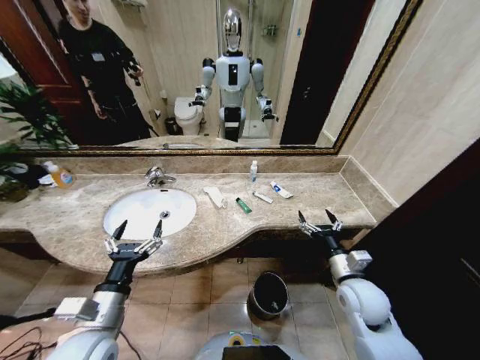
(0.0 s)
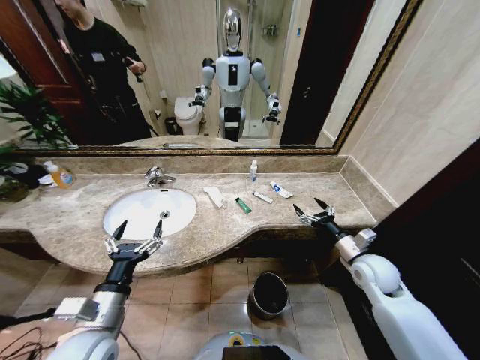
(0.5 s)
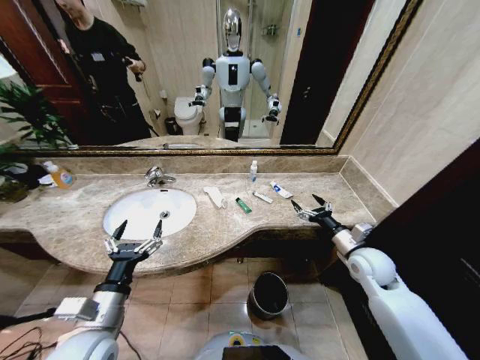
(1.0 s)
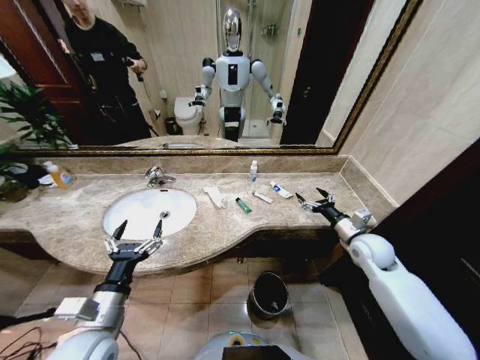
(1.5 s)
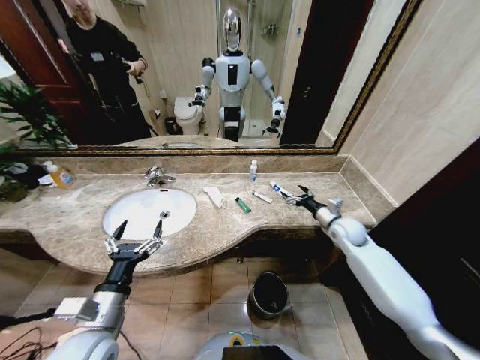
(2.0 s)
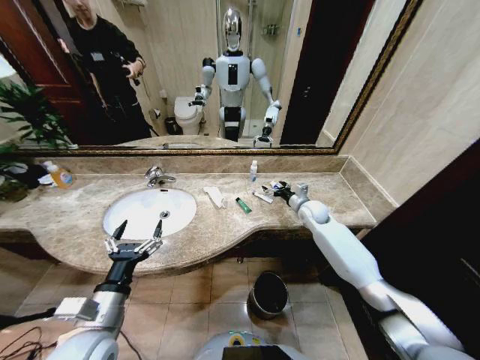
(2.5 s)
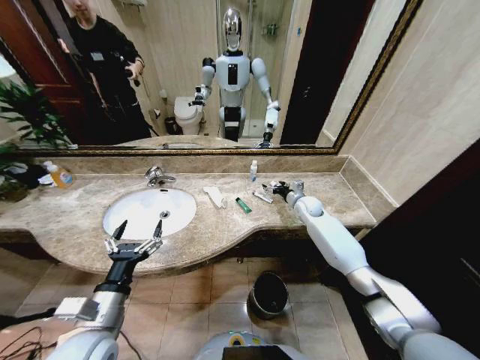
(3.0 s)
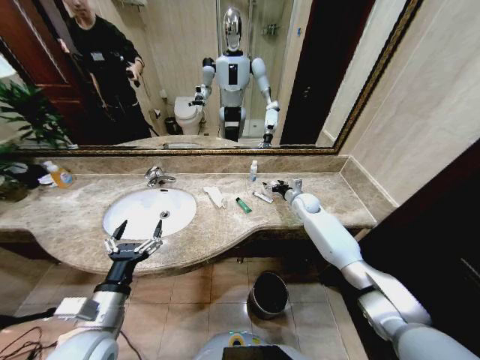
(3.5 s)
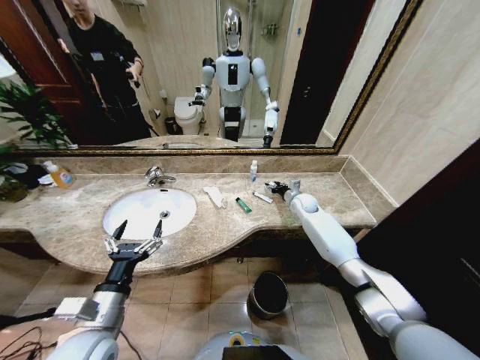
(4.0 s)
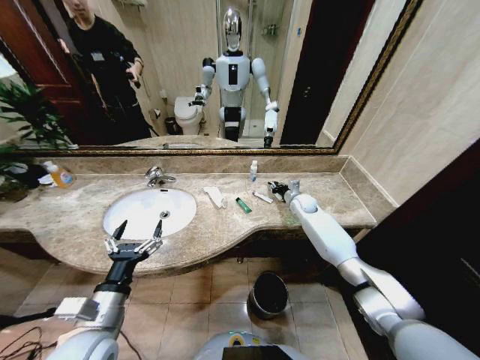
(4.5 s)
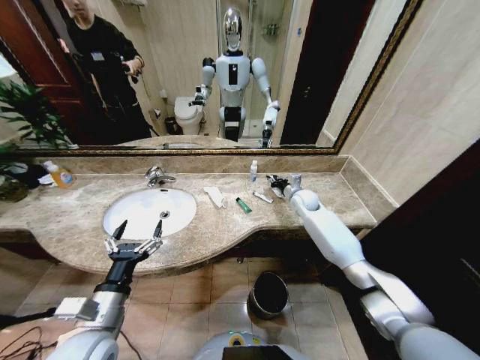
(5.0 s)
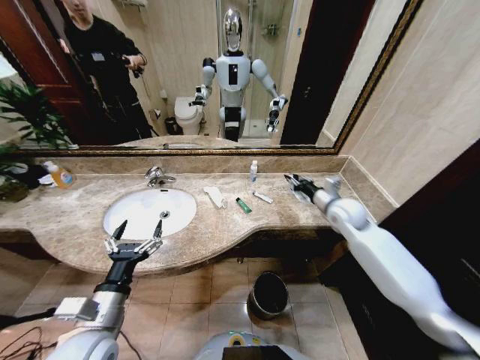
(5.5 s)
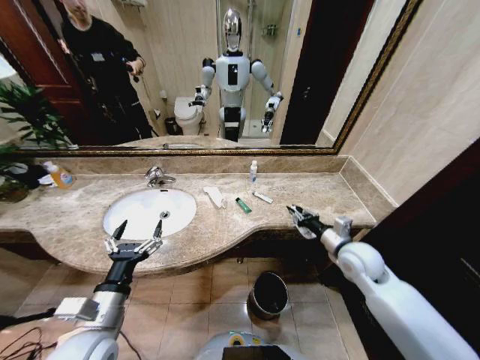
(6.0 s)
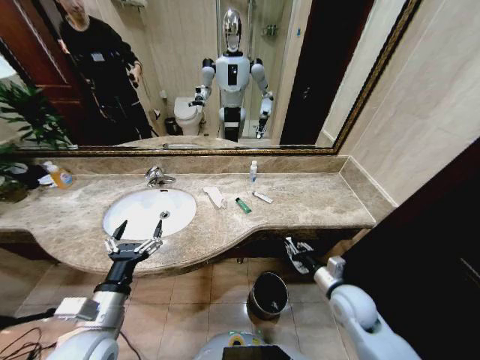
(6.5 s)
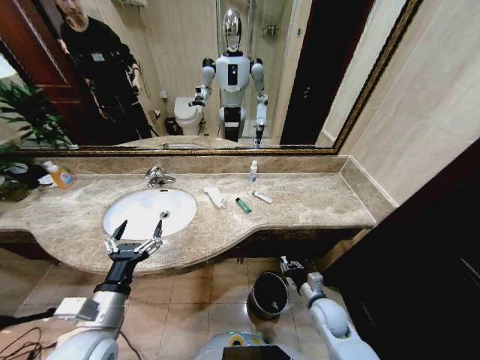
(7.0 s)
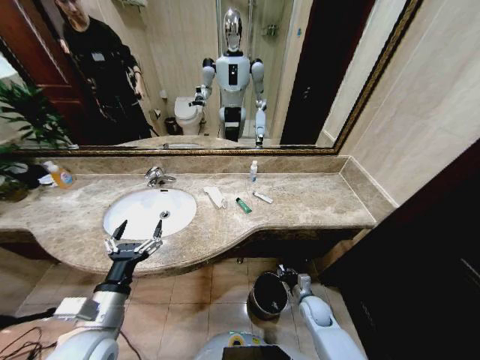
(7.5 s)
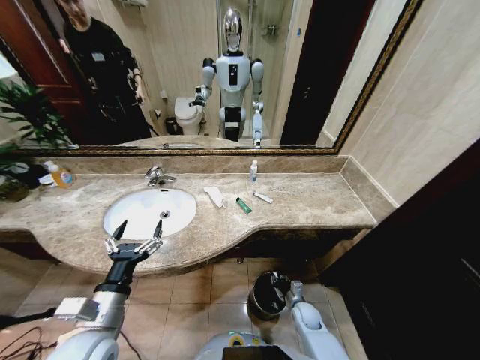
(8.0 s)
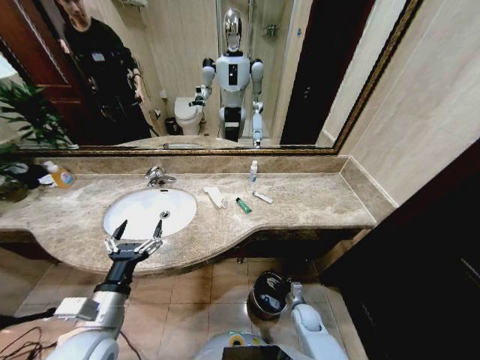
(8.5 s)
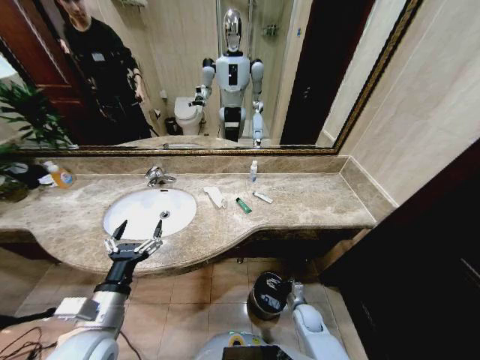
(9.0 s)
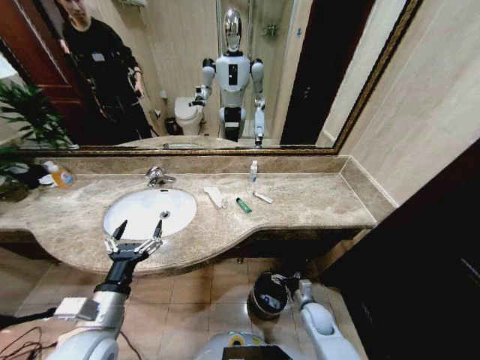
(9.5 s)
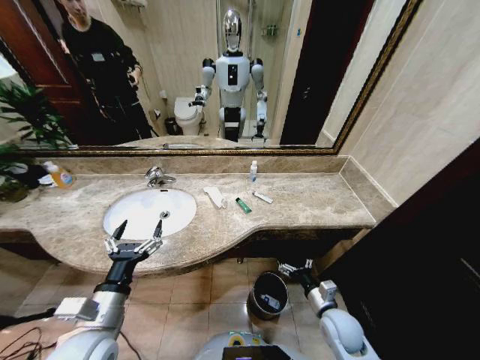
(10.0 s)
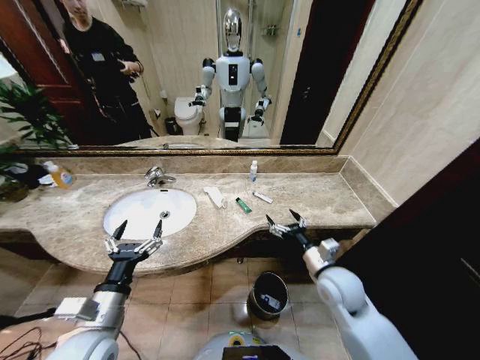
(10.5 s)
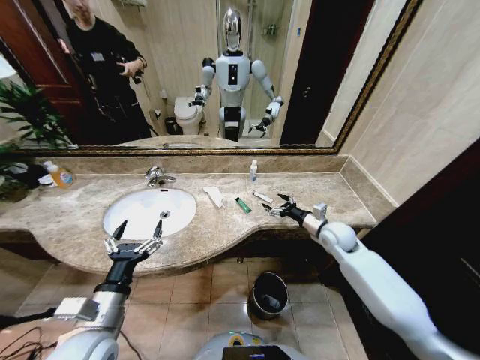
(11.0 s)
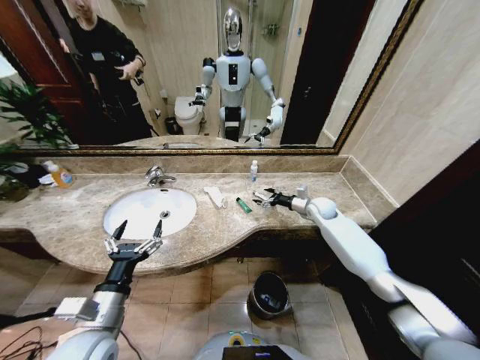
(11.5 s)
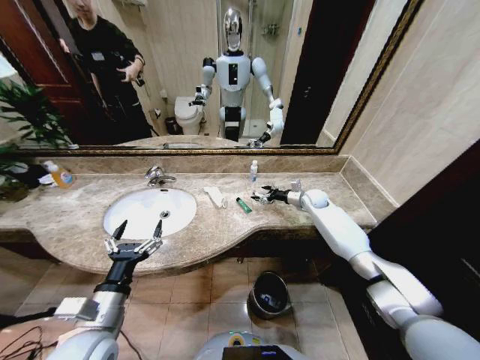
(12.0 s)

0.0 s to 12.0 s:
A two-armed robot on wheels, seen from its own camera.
Task of the whole recording: Pick up the trash from the sink and place it in the trash bin.
2.0 to 4.0 s: The right gripper moves forward and to the left, some 15 cm, and closes its fingers.
4.0 to 6.0 s: The right gripper travels backward by some 25 cm.
6.0 to 8.0 s: The right gripper travels downward by some 30 cm.
8.0 to 10.0 s: The right gripper goes about 15 cm upward, and opens.
10.0 to 12.0 s: The right gripper shifts some 40 cm forward.

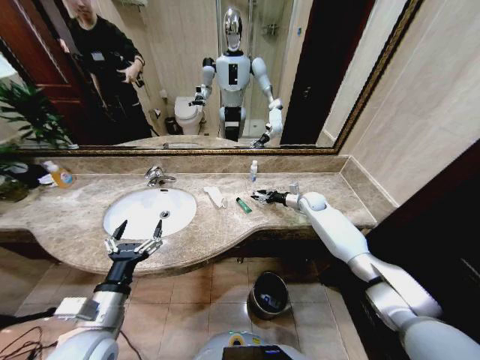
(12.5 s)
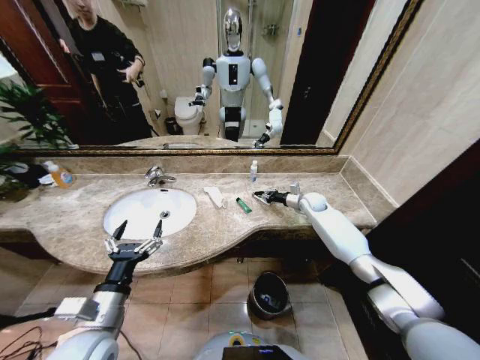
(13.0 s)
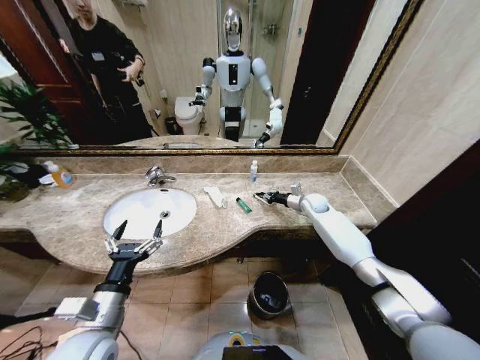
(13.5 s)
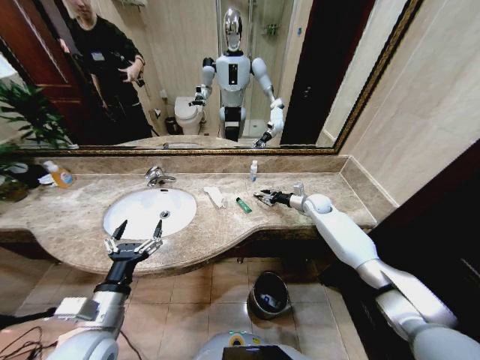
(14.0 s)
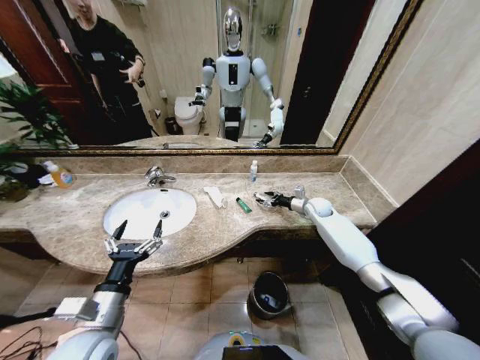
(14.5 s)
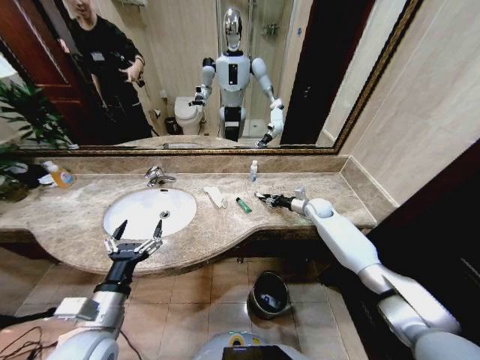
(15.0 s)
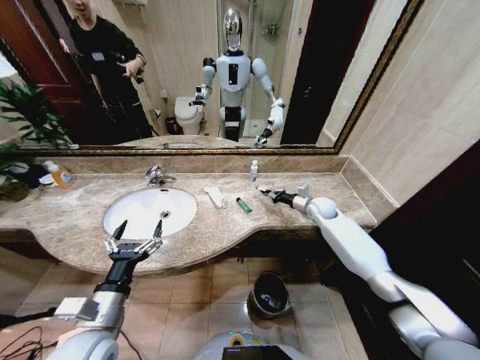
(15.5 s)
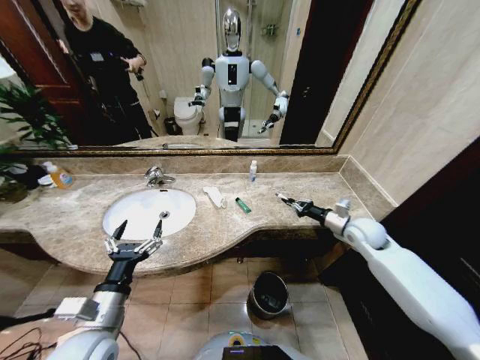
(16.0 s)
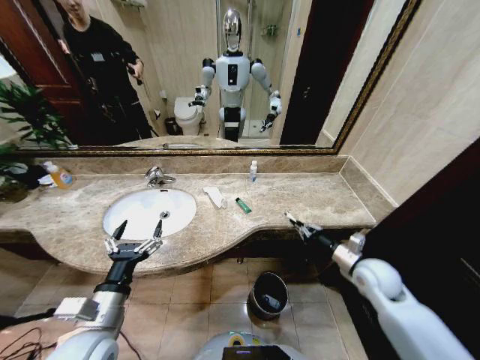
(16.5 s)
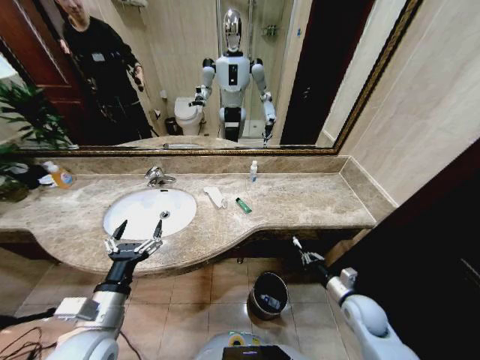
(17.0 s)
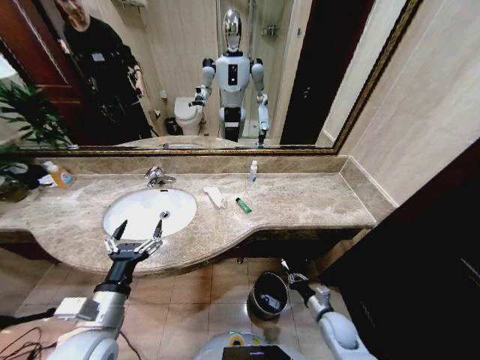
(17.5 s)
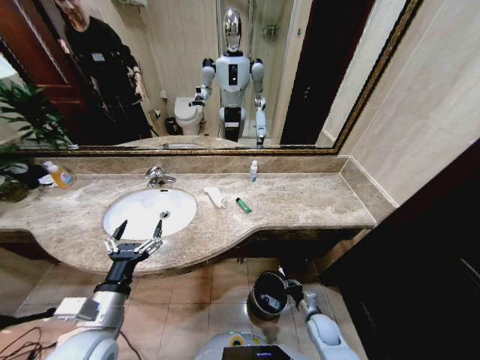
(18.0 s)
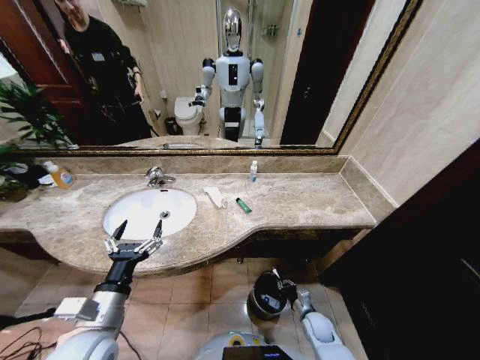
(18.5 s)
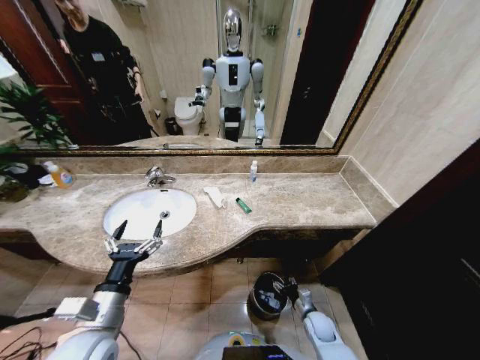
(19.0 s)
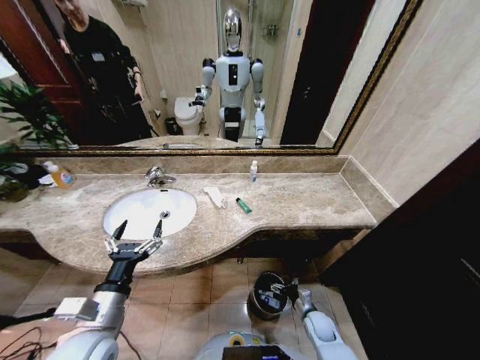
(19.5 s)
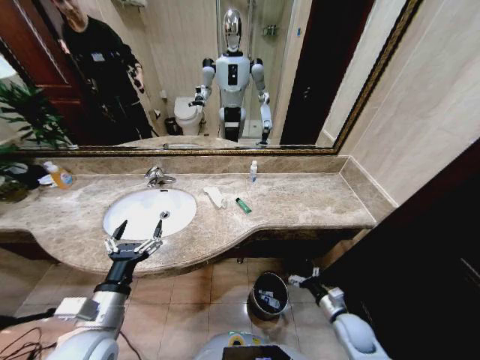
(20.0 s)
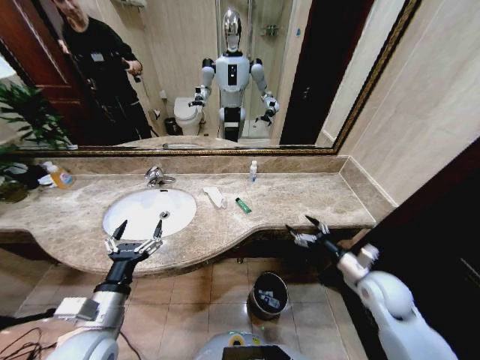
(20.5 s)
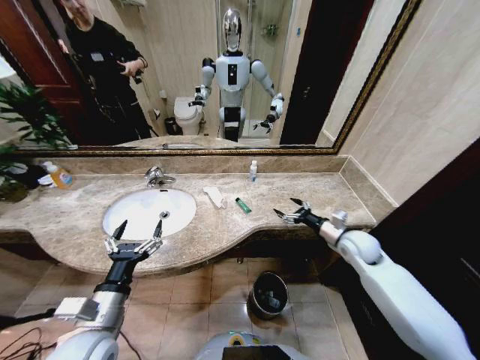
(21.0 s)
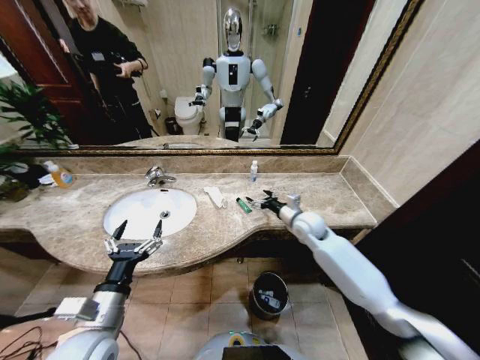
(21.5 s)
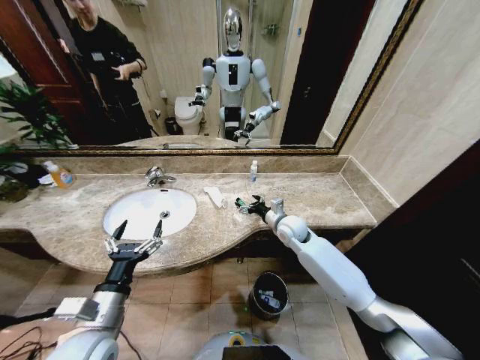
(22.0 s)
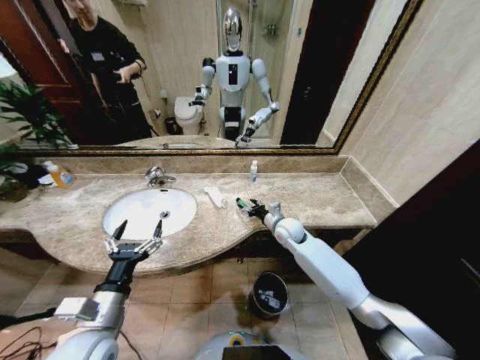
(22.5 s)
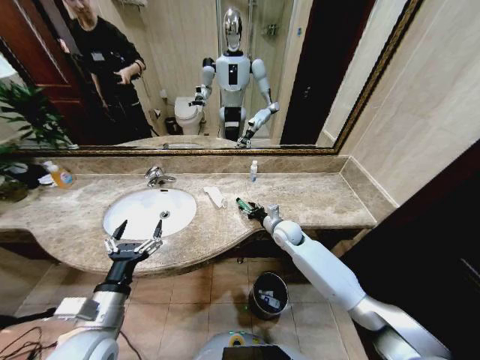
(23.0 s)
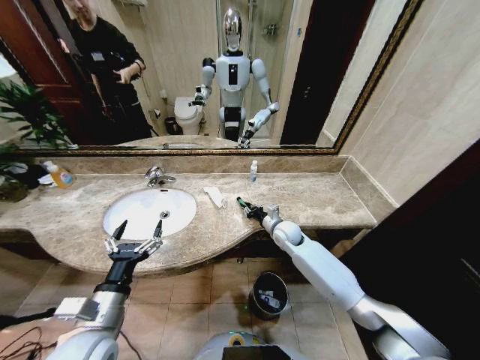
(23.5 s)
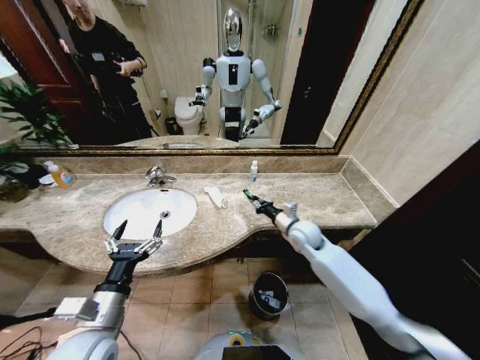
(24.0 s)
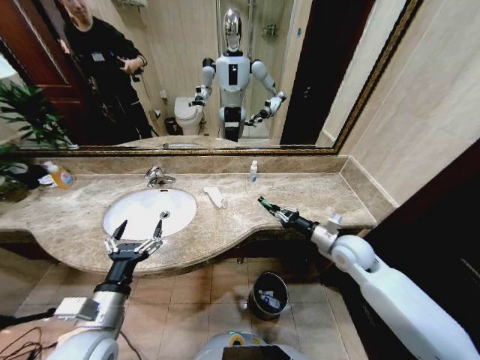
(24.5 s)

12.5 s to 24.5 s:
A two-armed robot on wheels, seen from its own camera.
Task of the whole recording: Pick up the trash from the sink and place it in the trash bin.
12.5 to 14.5 s: The right gripper closes, then opens again.
14.5 to 16.5 s: The right gripper is displaced backward by some 30 cm, and closes up.
16.5 to 18.5 s: The right gripper travels downward by approximately 25 cm.
18.5 to 20.5 s: The right gripper heads upward, covering approximately 30 cm, and opens up.
20.5 to 22.5 s: The right gripper travels forward and to the left by approximately 25 cm.
22.5 to 24.5 s: The right gripper shifts about 20 cm to the right, backward and upward, and closes up.

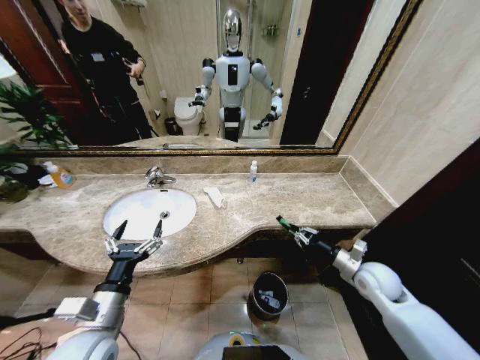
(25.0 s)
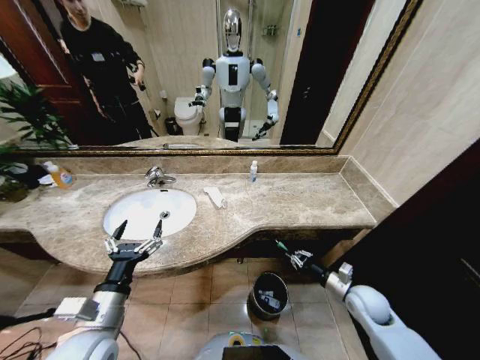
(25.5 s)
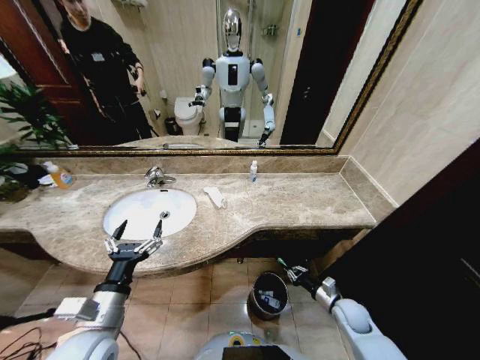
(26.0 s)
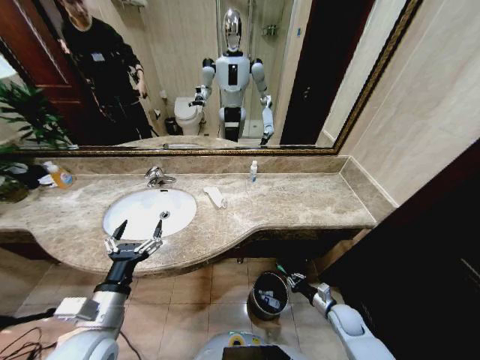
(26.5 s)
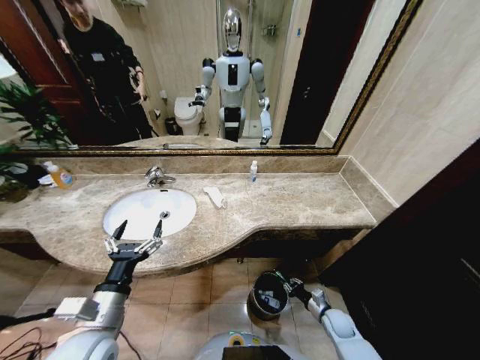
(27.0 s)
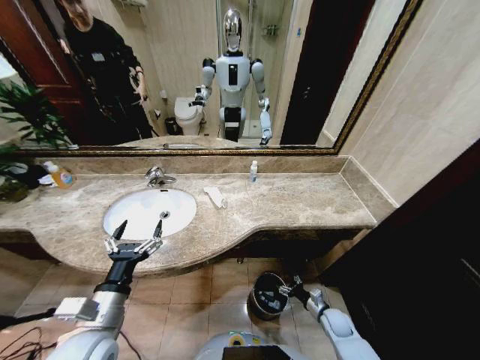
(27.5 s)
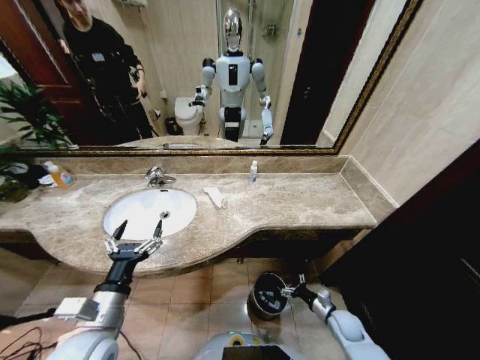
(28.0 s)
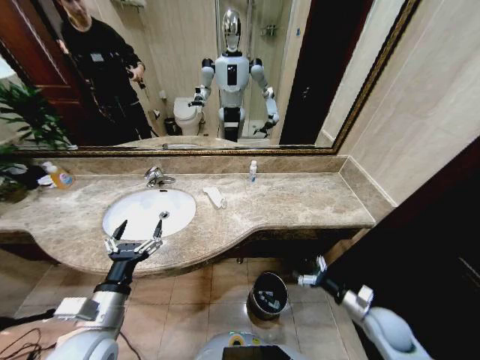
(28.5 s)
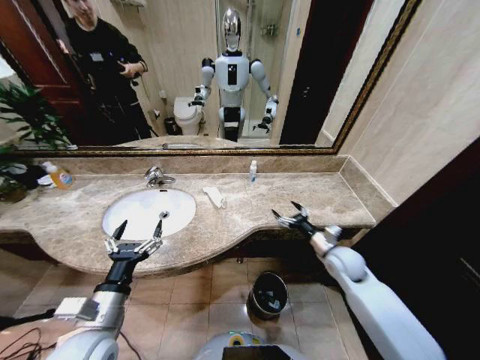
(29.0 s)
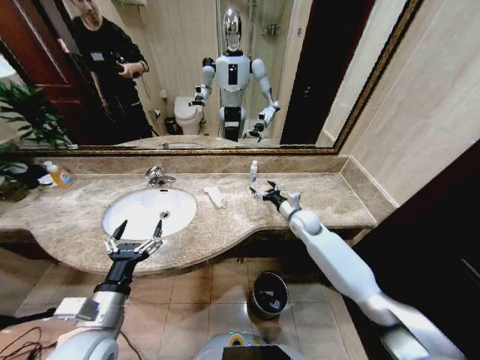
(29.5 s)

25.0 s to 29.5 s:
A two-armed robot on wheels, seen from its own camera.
Task of the whole recording: Pick up the trash from the sink and place it in the trash bin.
25.0 to 27.0 s: The right gripper moves downward, approximately 25 cm.
27.0 to 29.5 s: The right gripper heads upward, forward and to the left, covering about 40 cm, and opens its fingers.
